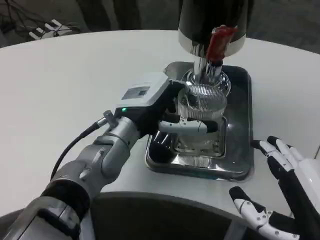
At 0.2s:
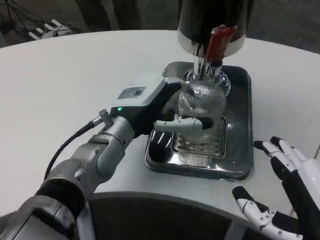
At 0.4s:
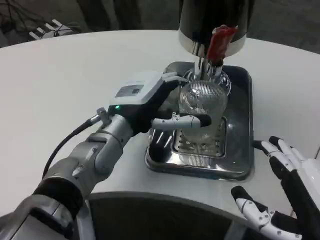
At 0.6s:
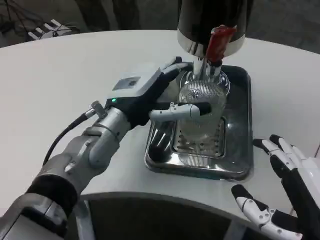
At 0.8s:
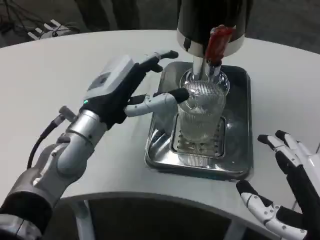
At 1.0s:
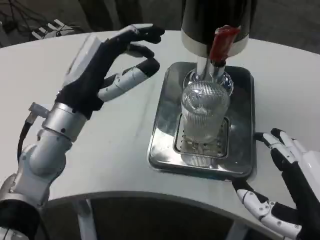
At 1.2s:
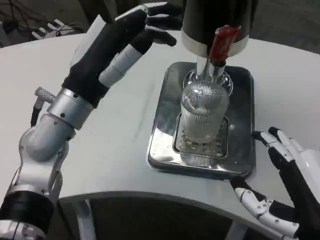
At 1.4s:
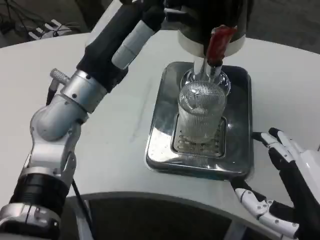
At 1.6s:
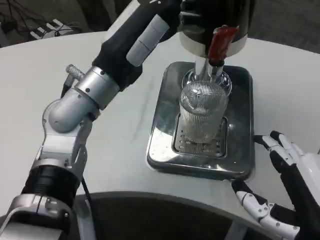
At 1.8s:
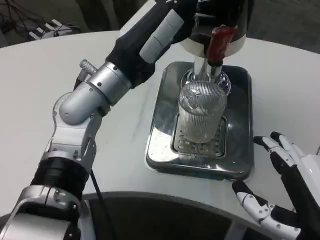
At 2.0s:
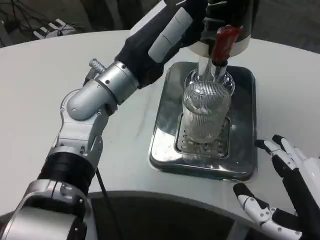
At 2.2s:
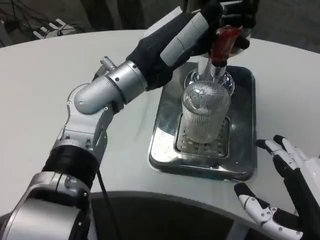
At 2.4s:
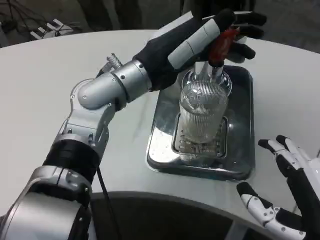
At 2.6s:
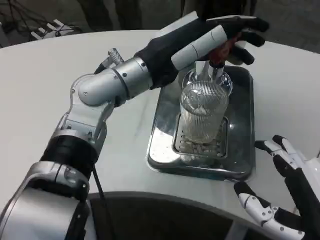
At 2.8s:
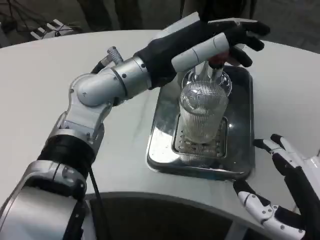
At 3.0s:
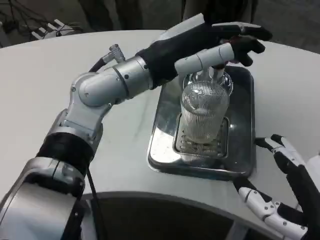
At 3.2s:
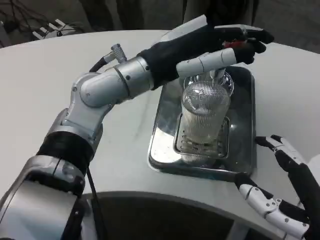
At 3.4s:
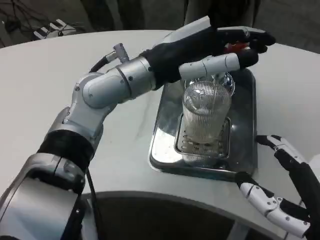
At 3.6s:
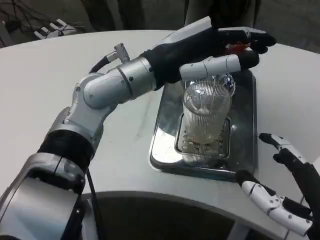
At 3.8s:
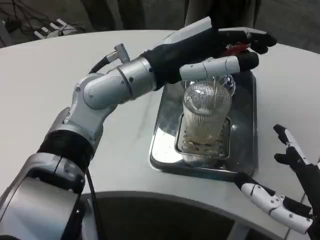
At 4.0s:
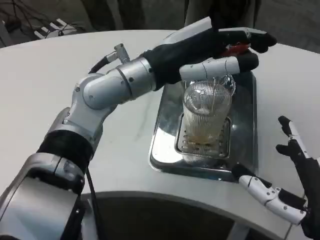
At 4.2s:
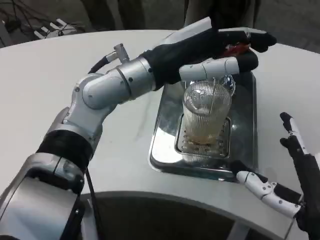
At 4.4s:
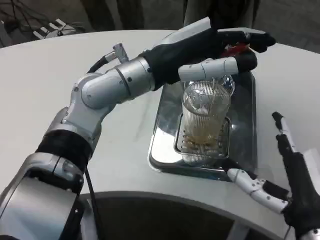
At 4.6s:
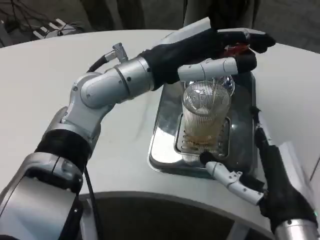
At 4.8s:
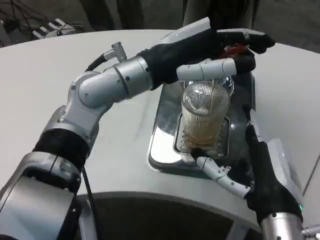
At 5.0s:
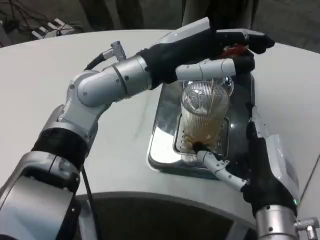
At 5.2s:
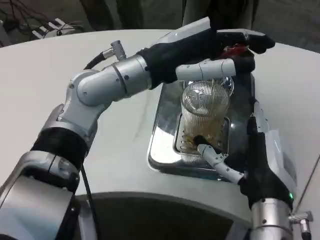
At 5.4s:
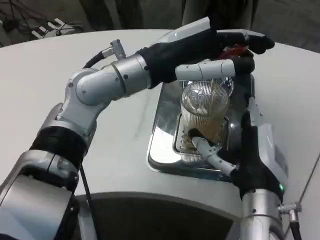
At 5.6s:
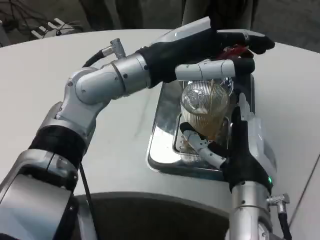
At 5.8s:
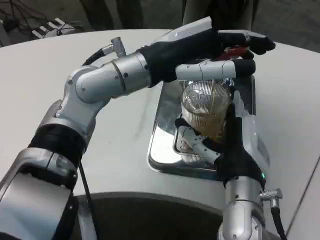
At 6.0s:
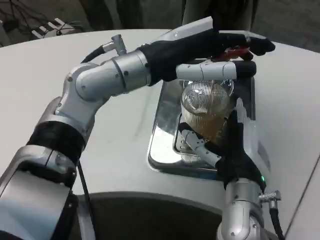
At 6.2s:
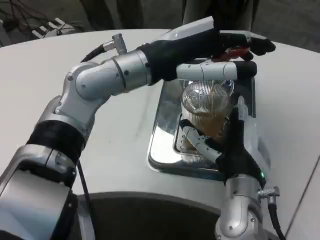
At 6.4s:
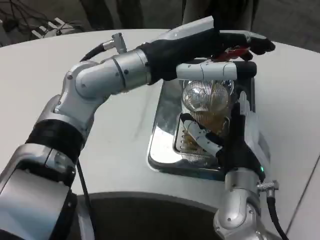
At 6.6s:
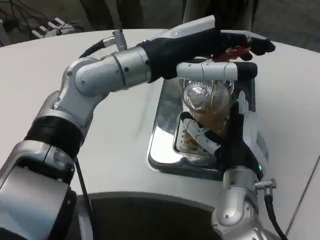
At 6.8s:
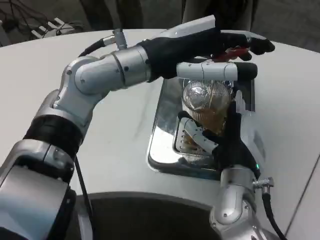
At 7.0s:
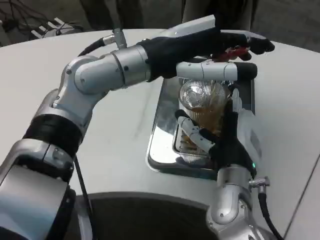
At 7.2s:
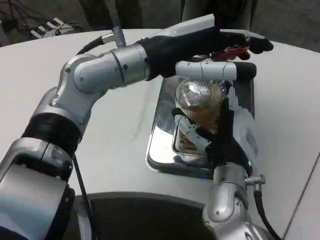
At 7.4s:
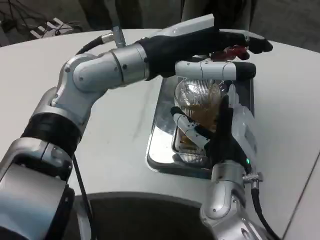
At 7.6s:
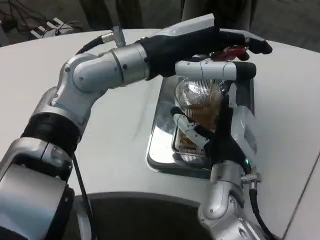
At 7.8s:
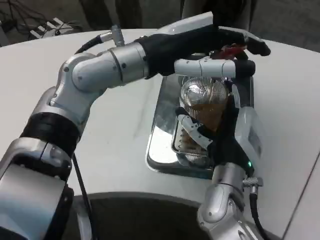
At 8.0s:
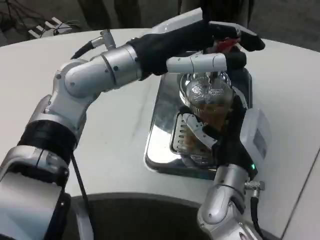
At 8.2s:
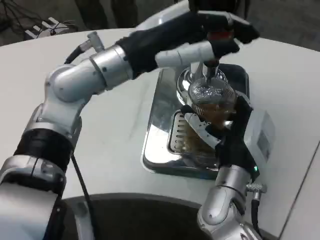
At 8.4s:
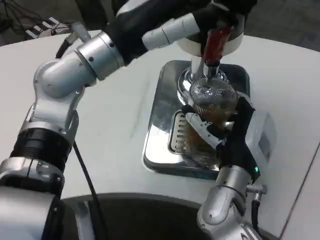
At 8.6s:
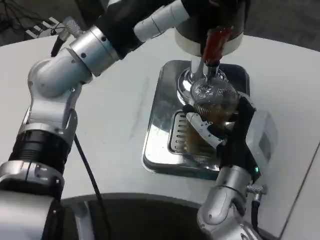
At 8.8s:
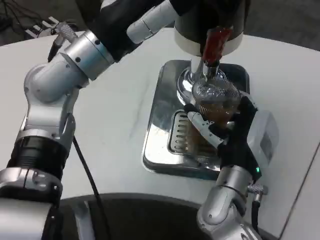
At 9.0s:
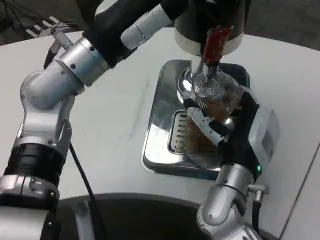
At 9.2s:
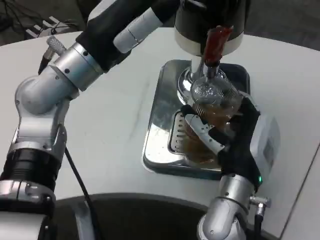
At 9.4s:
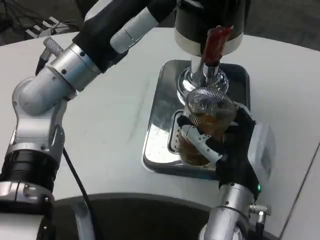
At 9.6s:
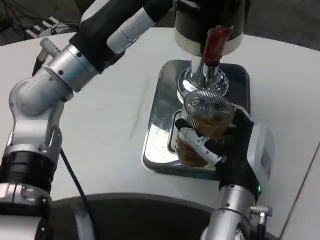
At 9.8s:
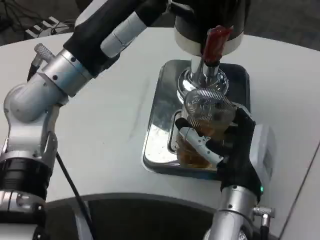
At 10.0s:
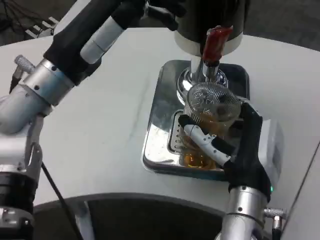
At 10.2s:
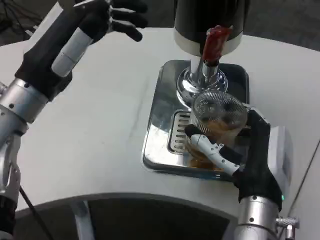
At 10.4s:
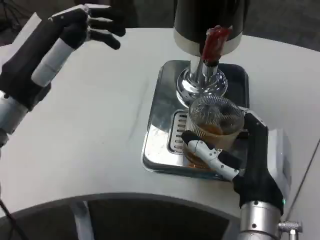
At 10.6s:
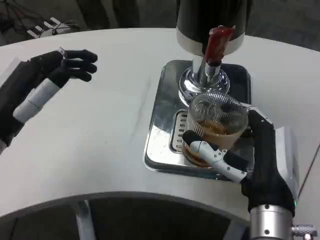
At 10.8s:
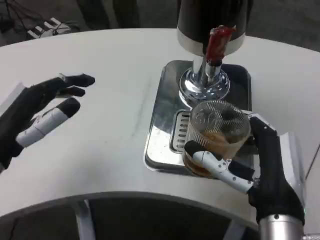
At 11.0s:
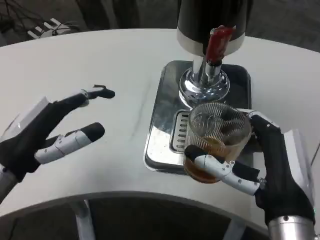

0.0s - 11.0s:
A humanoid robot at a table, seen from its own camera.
Task of the whole recording: Grasp the cup under the faucet to collect the drink, then remove the cup.
0.0s - 1.6s: The left hand heads upward, covering about 10 cm.
3.2s - 4.8s: The right hand is displaced forward and to the left by approximately 10 cm.
4.8s - 6.2s: The right hand travels forward by about 5 cm.
7.8s - 9.4s: The left hand heads to the left, covering roughly 5 cm.
9.4s - 11.0s: The right hand moves backward and to the right, about 10 cm; the left hand goes approximately 15 cm downward, backward and to the left.

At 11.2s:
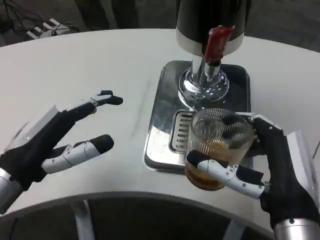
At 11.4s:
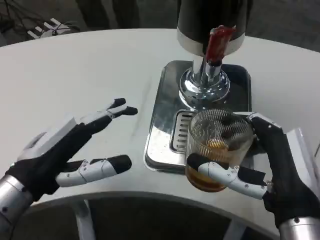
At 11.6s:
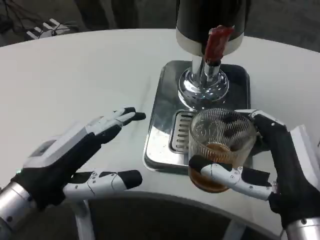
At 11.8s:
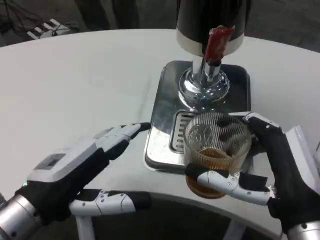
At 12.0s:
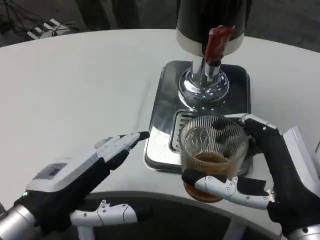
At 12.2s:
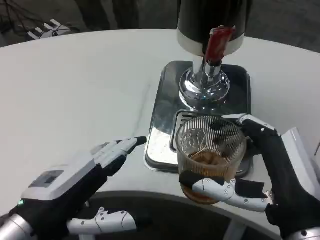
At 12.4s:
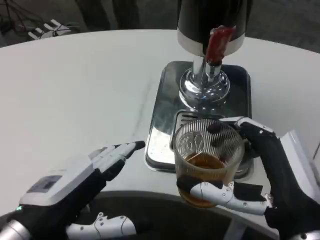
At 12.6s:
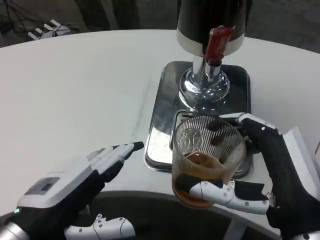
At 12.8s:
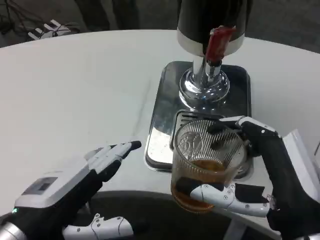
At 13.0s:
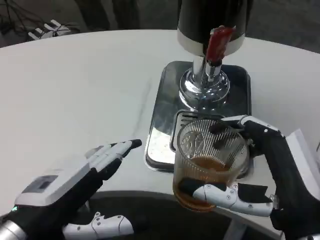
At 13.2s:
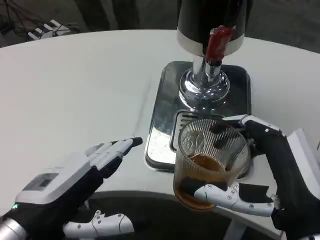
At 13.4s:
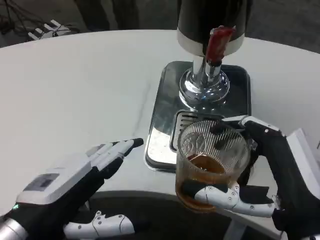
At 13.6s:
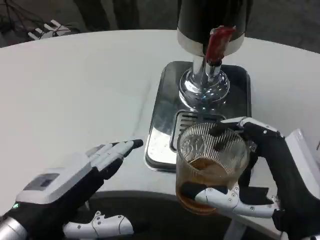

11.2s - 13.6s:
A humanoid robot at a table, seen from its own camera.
Task of the whole recording: Grasp the cup under the faucet to collect the drink, then remove the cup.
11.2s - 12.4s: The left hand heads backward, covering some 5 cm.
12.4s - 13.6s: The two hands keep their place.

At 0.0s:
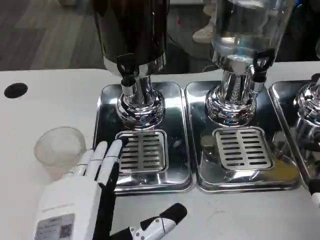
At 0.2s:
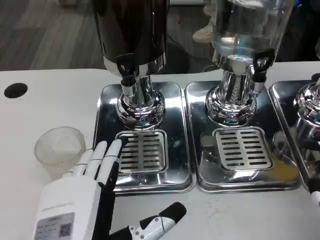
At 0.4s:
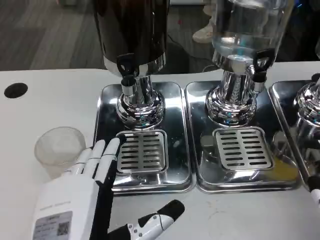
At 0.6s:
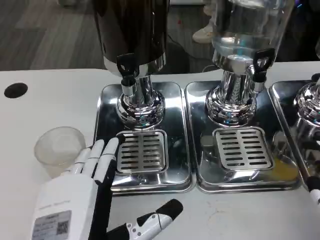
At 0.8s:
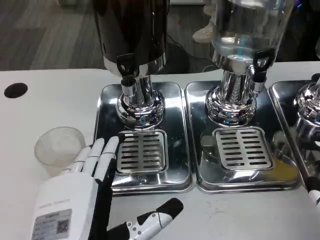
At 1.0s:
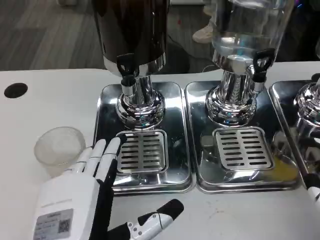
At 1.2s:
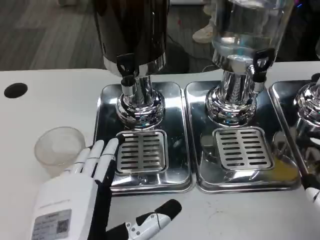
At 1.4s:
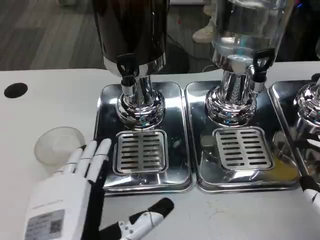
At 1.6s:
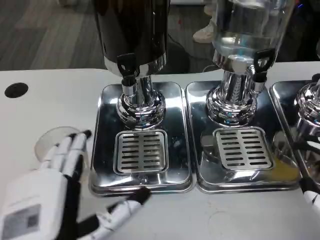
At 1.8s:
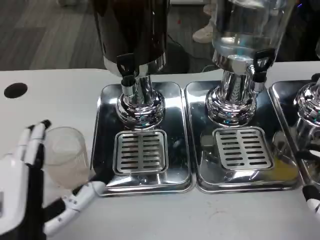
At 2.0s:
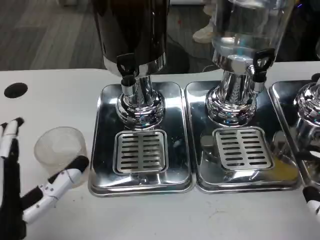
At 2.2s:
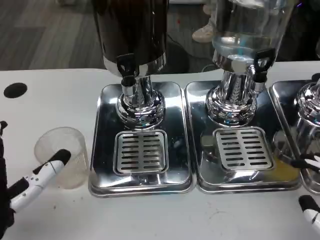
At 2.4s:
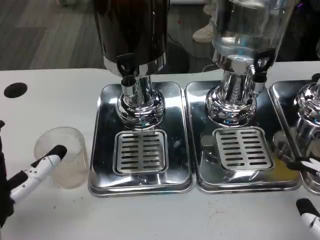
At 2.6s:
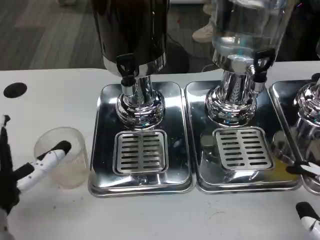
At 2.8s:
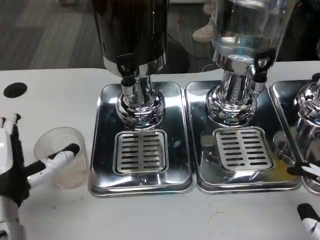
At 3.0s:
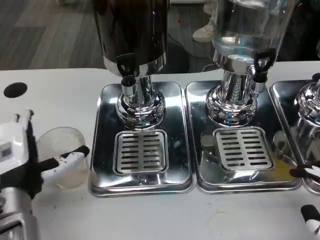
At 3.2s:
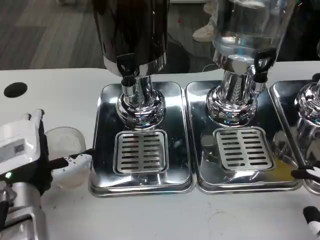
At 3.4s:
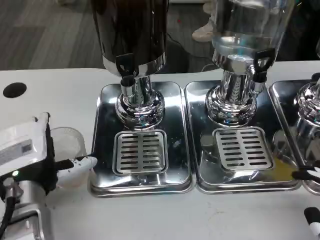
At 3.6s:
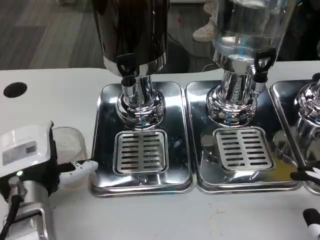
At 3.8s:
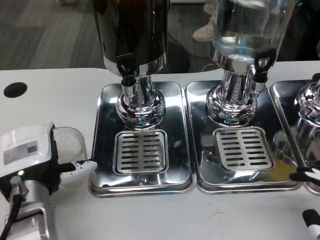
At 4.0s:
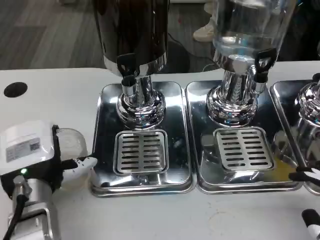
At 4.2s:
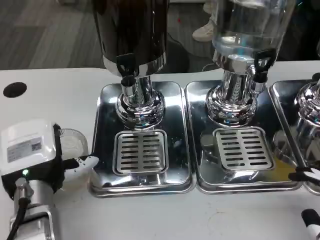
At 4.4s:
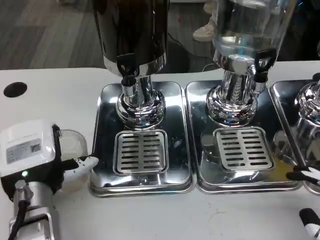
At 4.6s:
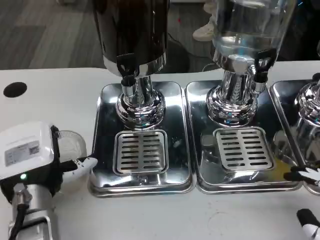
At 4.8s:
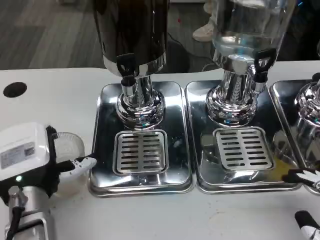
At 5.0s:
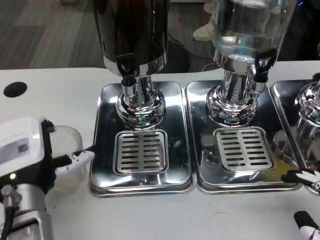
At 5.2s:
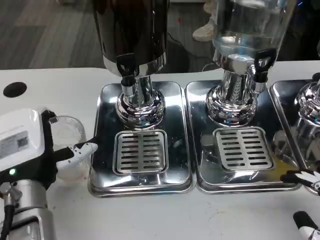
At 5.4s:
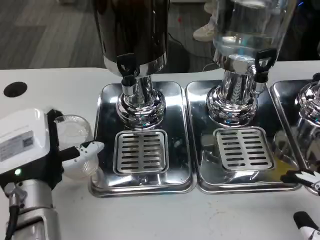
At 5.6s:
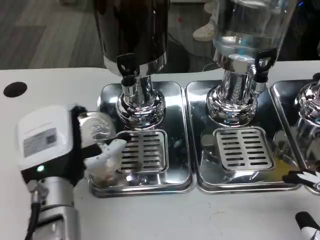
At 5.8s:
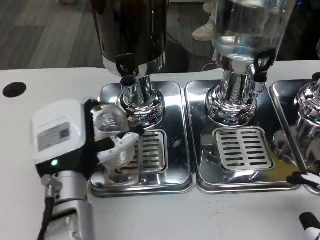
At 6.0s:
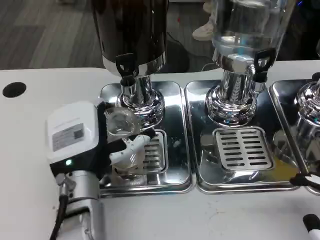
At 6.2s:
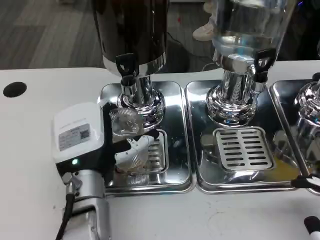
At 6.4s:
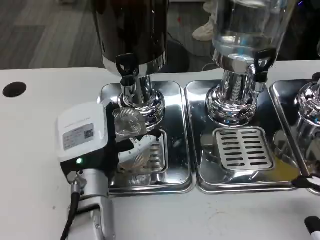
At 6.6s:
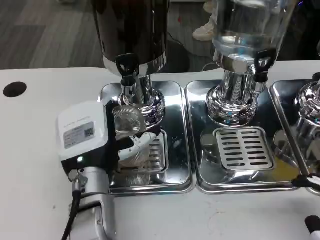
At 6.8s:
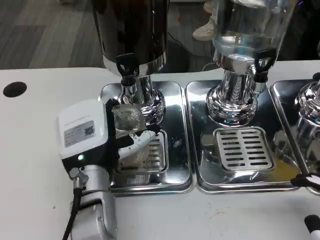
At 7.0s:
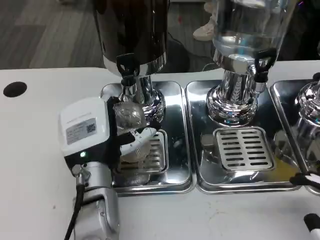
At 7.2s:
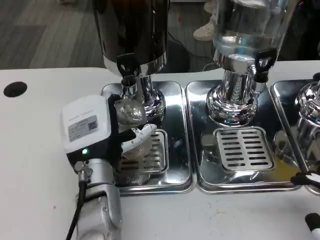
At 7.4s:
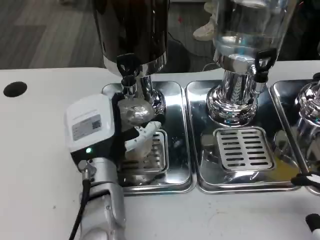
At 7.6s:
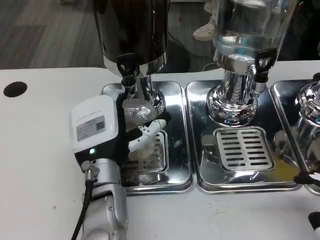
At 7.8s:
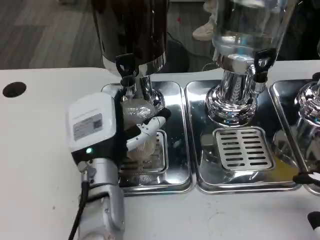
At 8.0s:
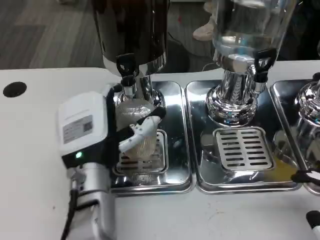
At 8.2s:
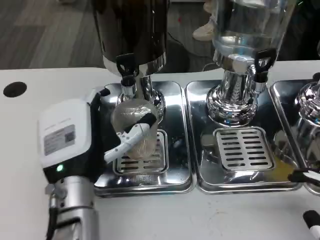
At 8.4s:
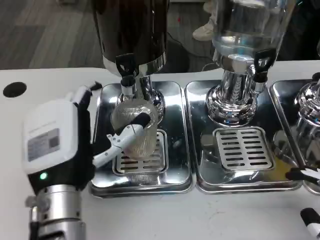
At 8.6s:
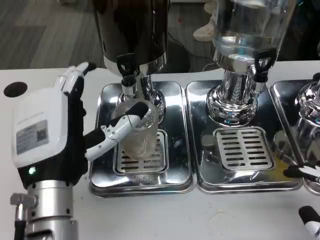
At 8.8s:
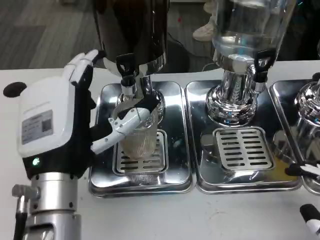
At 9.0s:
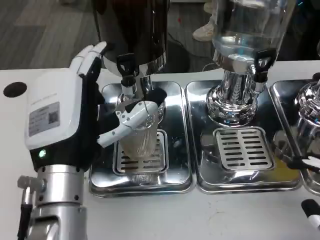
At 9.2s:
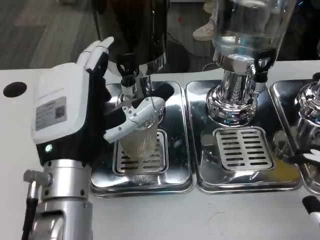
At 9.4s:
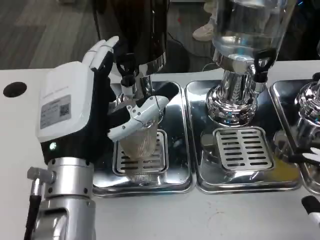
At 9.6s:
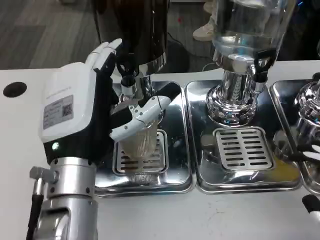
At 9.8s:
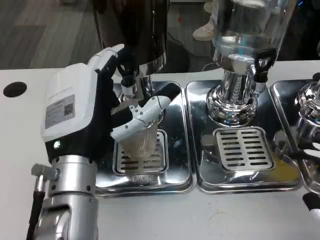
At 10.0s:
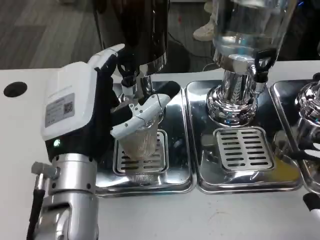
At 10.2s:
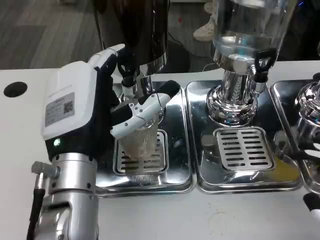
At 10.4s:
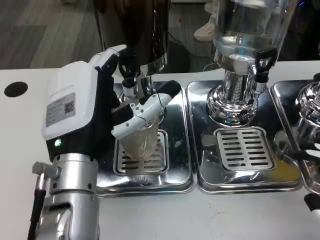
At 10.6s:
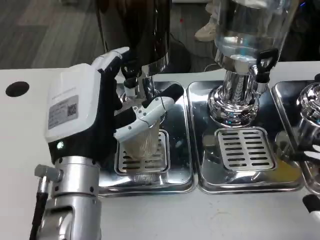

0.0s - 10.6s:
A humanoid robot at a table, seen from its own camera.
Task of the whole recording: Grasp the cup under the faucet to collect the drink, then remove the cup.
0.0s - 1.6s: There are only small adjustments of the hands.
1.6s - 3.0s: The left hand goes some 10 cm forward.
3.0s - 4.6s: The hands move only a little.
4.6s - 6.0s: The left hand heads to the right, covering some 5 cm.
6.0s - 7.6s: The hands stay close to where they were, moving slightly.
7.6s - 9.0s: The left hand goes about 10 cm upward and backward.
